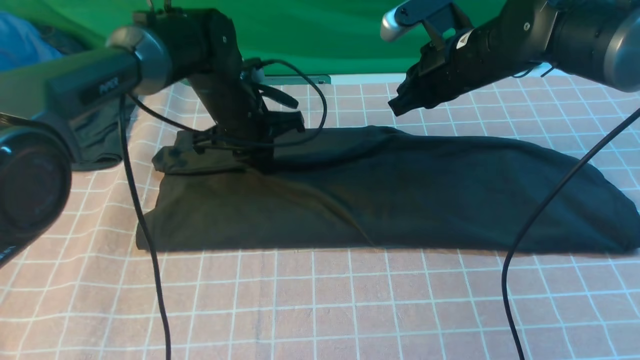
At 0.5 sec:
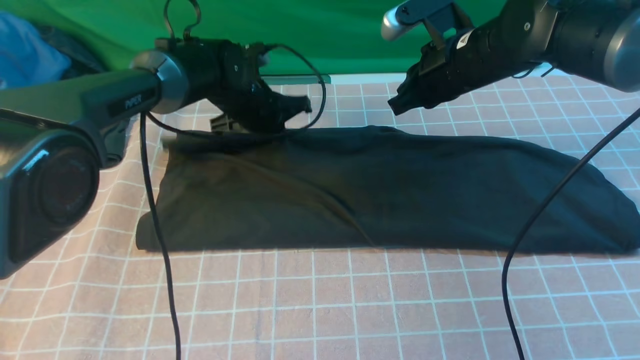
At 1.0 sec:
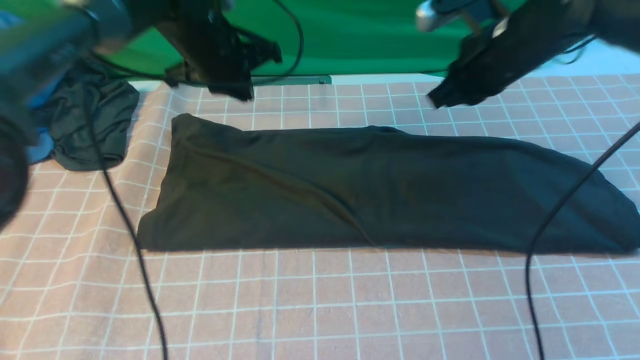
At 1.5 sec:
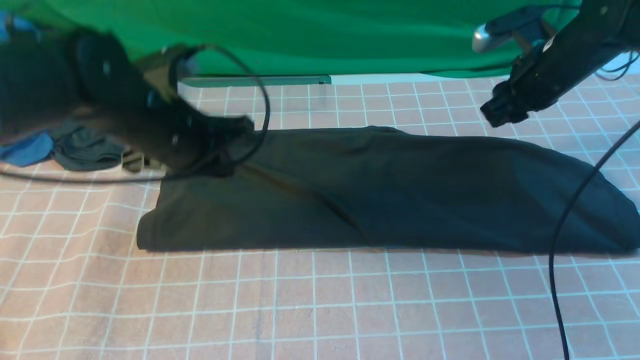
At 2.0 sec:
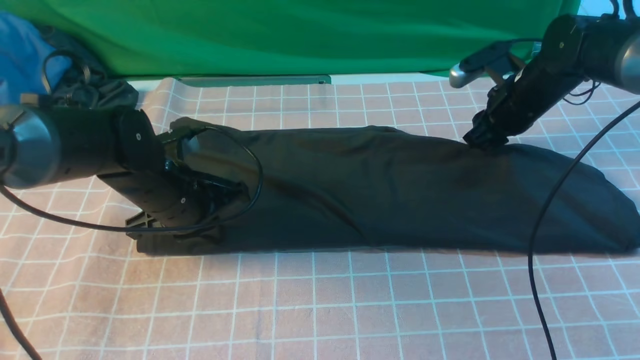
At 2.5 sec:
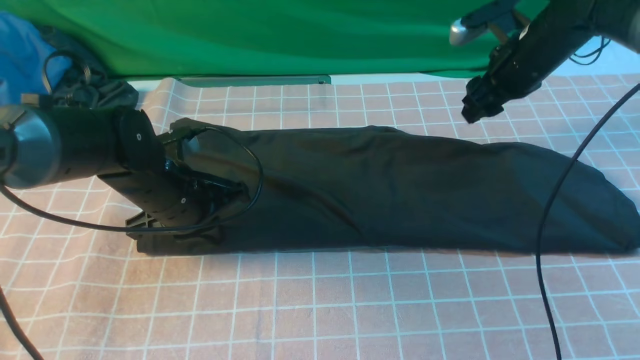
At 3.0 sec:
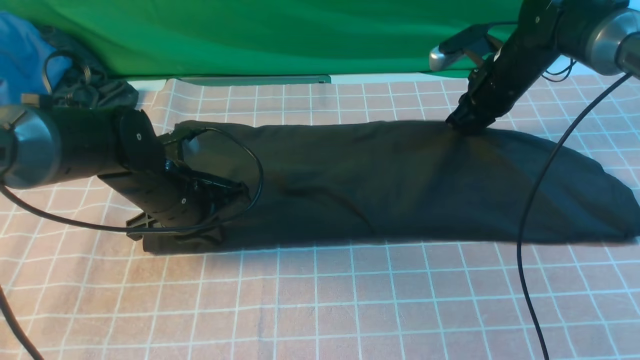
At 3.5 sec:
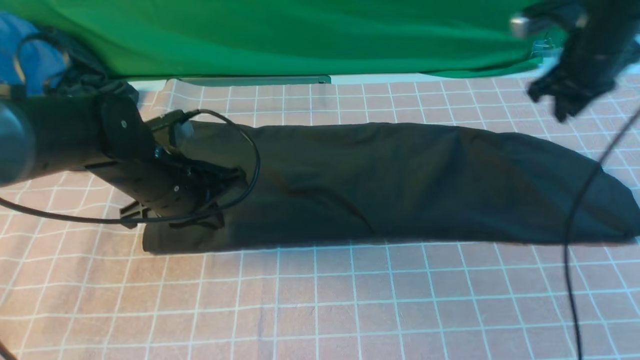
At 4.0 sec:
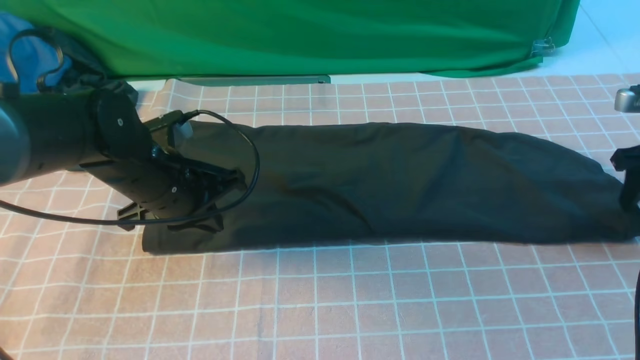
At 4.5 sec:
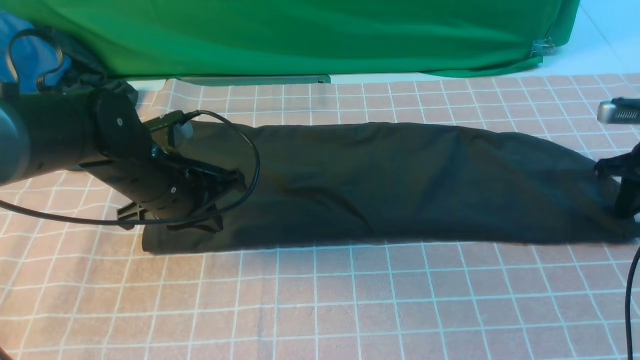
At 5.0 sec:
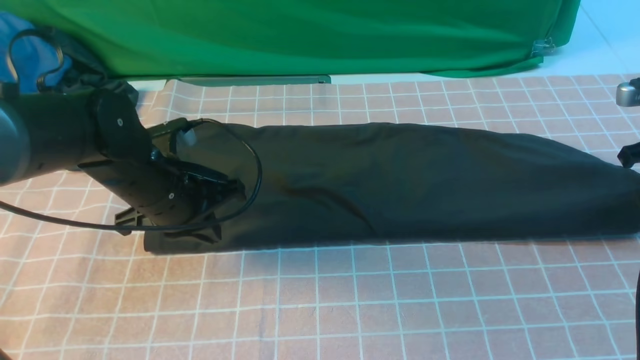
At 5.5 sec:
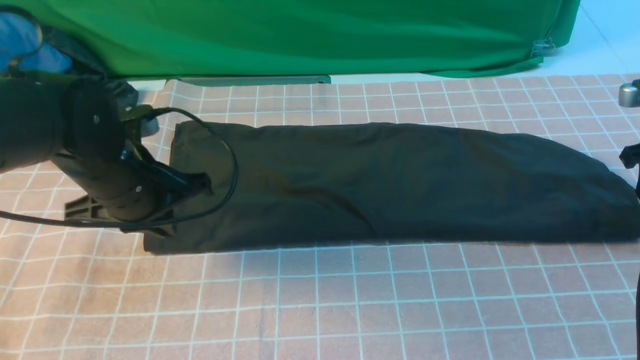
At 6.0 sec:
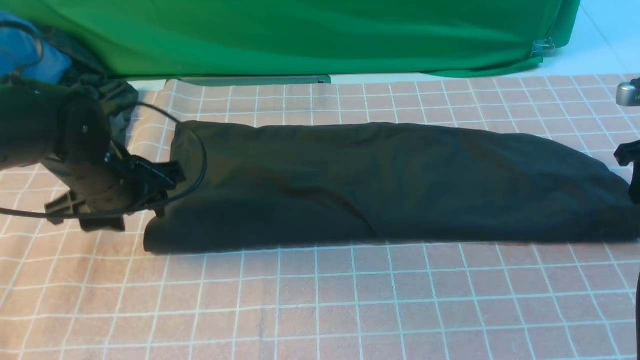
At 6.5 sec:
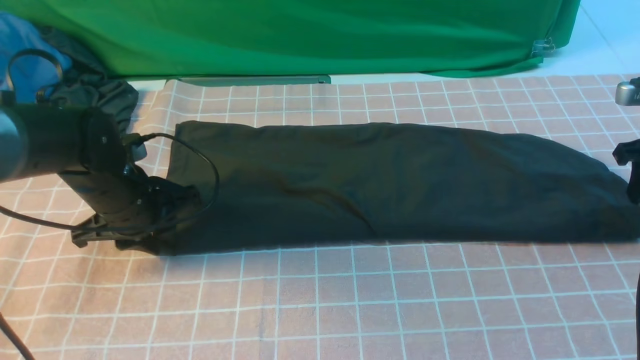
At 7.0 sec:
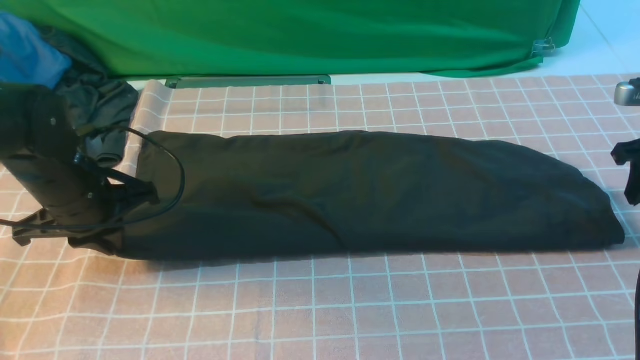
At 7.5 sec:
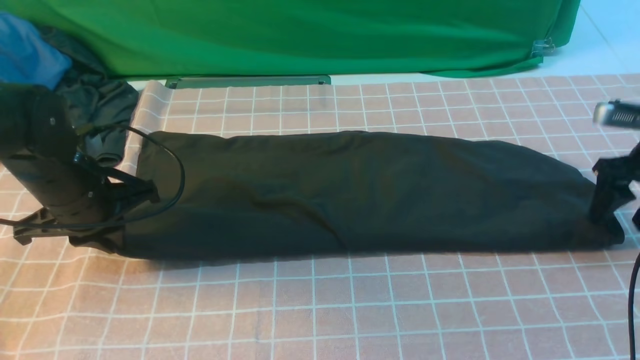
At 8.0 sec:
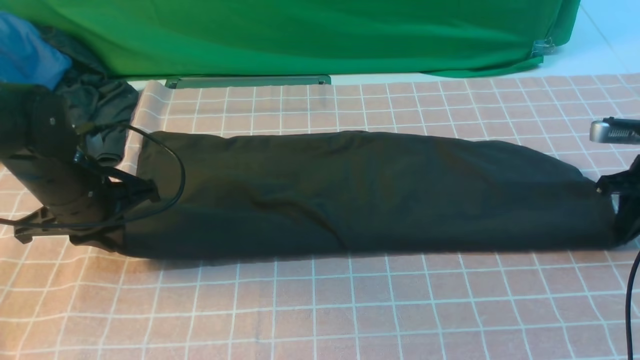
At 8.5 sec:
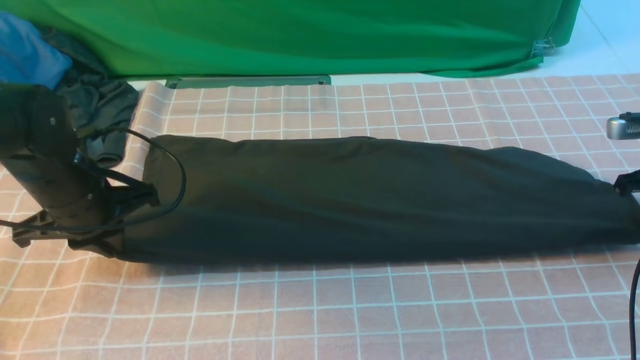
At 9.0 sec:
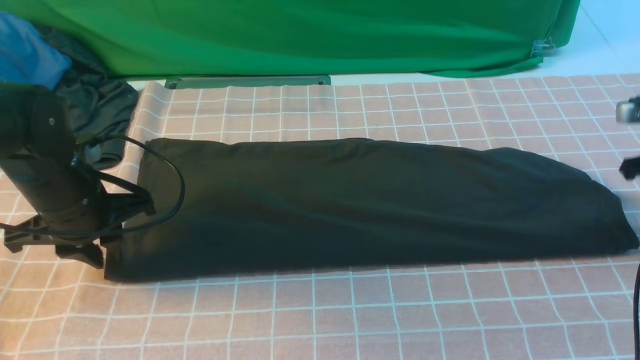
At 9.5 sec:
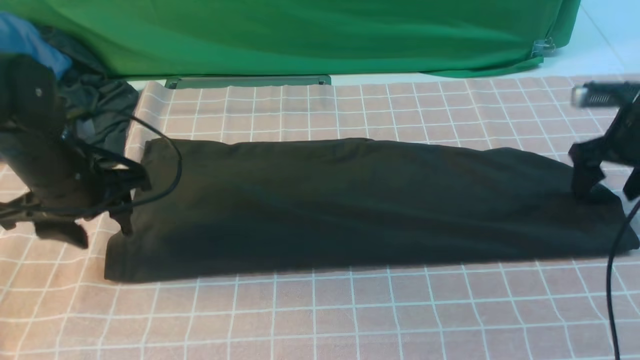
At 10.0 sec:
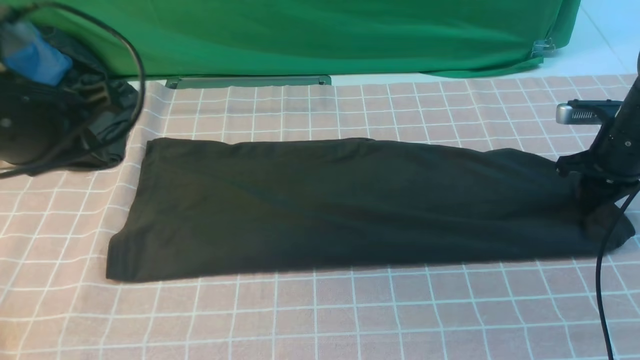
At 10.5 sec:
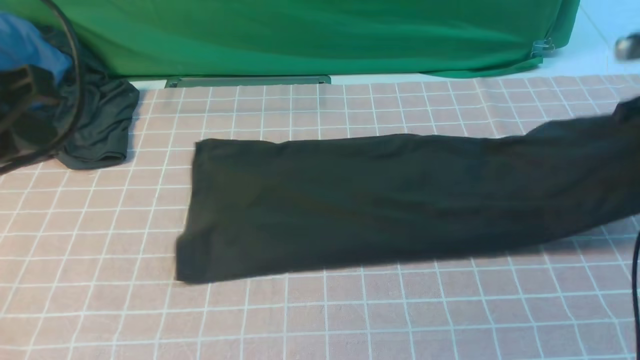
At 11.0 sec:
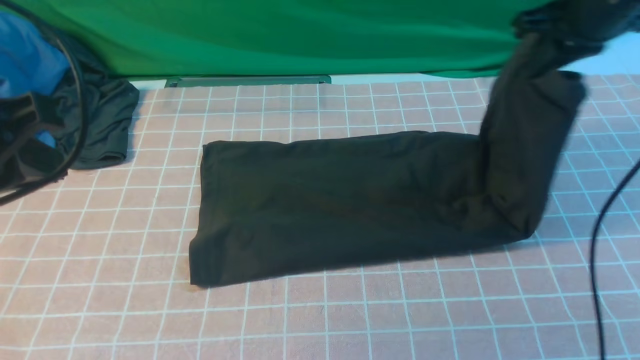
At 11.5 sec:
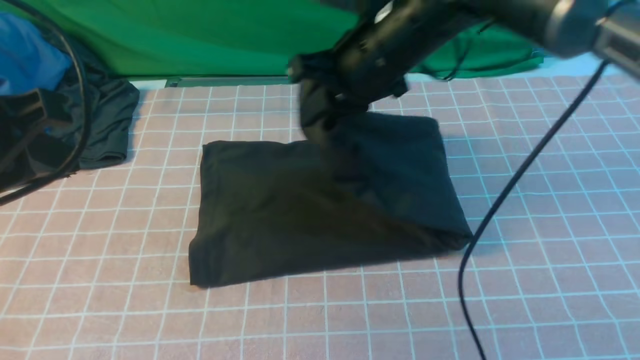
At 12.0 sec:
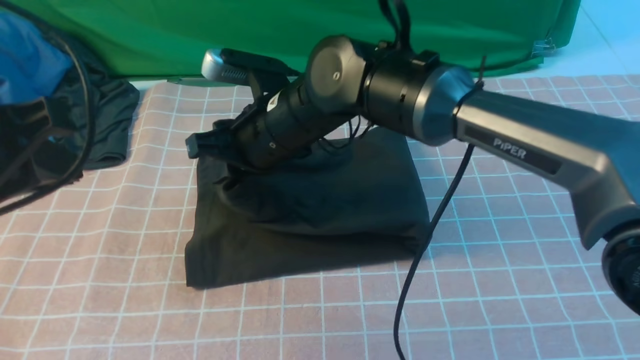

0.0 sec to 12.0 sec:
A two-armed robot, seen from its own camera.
Step, 0.0 sec to 9.5 sec: use the right arm to clamp the right edge of the fabric.
0.0 sec to 2.0 sec: The right gripper heads to the right and downward, covering roughly 10 cm, and opens its fingers. Meanwhile the left gripper travels backward and to the left by some 15 cm.
2.0 sec to 4.0 sec: The right gripper shifts about 15 cm to the right and backward.
4.0 sec to 6.0 sec: The right gripper closes, then opens again, while the left gripper heads to the left, covering roughly 5 cm, and opens up.
6.0 sec to 8.0 sec: The right gripper closes up; the left gripper closes.
8.0 sec to 10.0 sec: The right gripper shifts by about 5 cm, and opens, while the left gripper heads upward and backward, covering some 15 cm, and opens, then closes once more.
10.0 sec to 12.0 sec: The left gripper travels backward by roughly 5 cm. Meanwhile the right gripper travels to the left by roughly 40 cm.

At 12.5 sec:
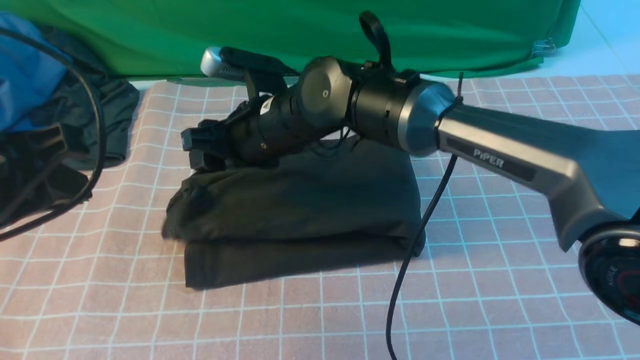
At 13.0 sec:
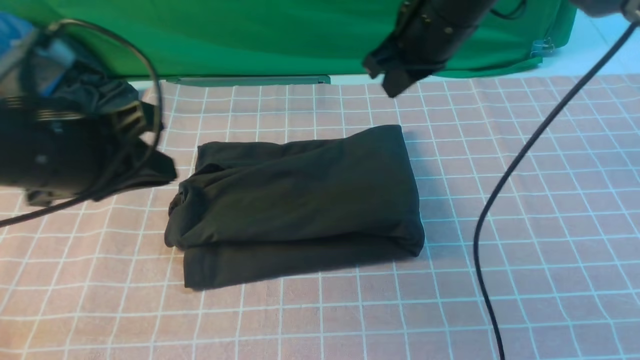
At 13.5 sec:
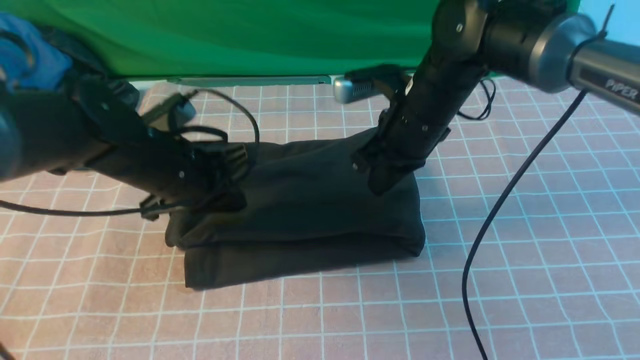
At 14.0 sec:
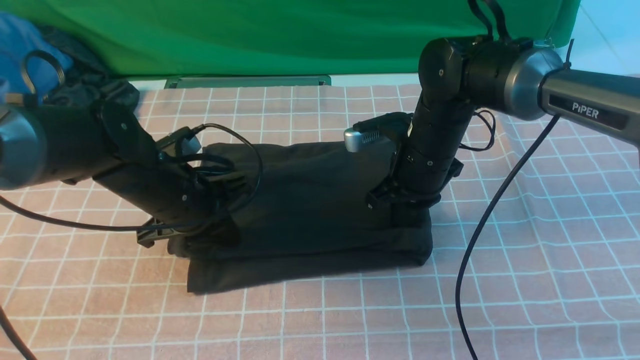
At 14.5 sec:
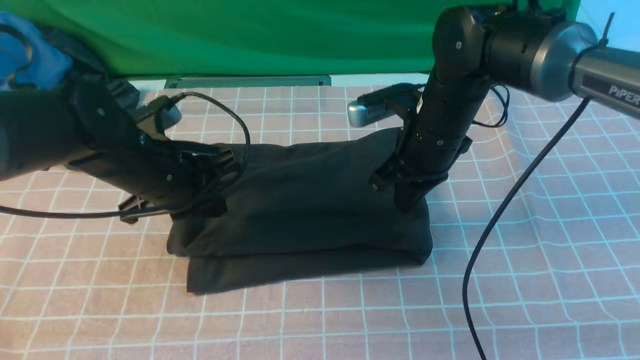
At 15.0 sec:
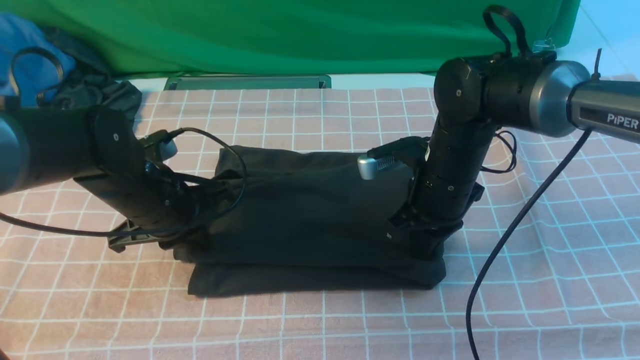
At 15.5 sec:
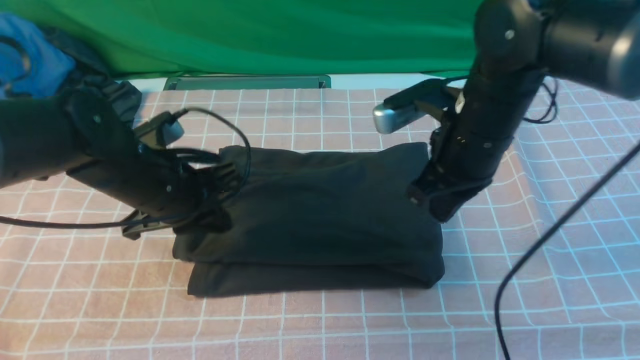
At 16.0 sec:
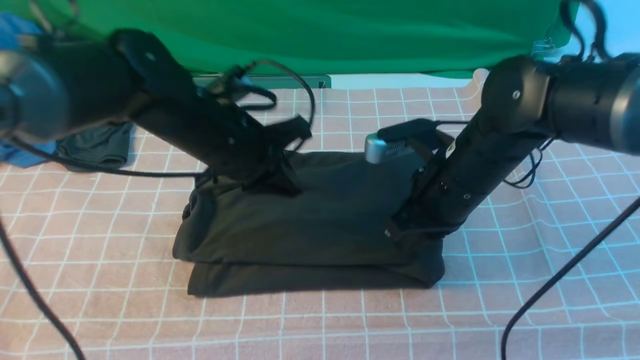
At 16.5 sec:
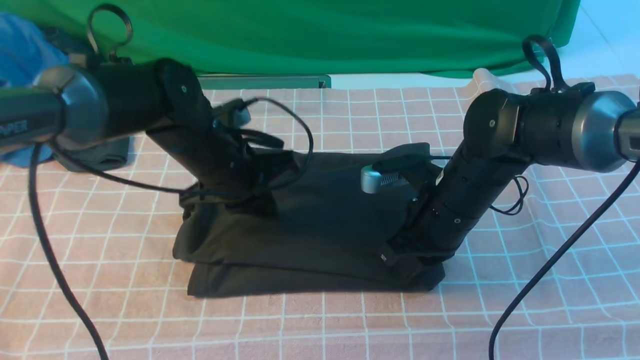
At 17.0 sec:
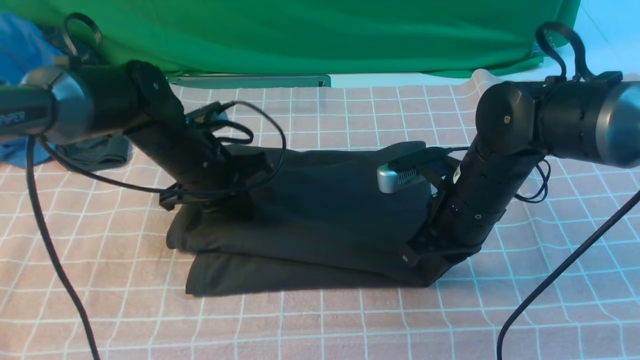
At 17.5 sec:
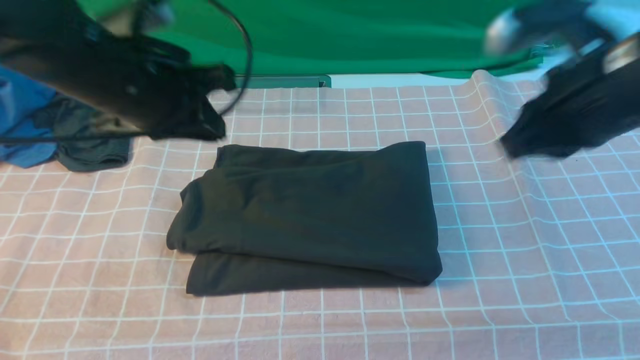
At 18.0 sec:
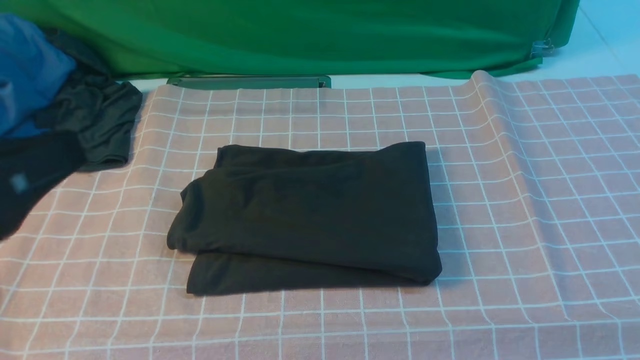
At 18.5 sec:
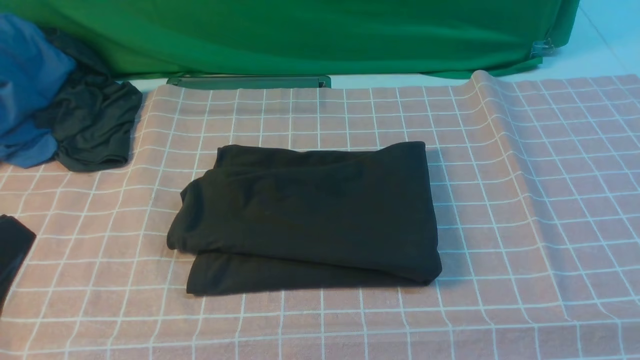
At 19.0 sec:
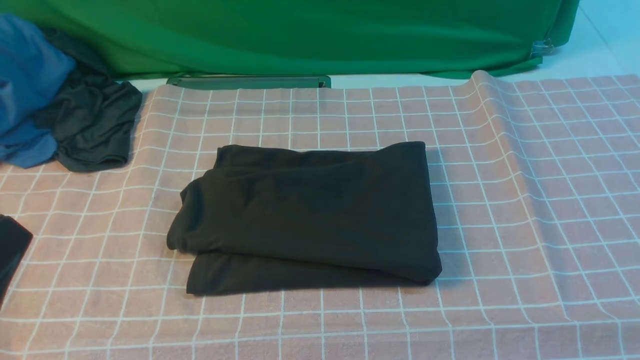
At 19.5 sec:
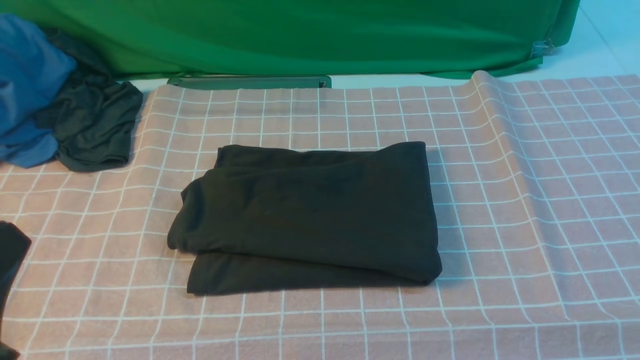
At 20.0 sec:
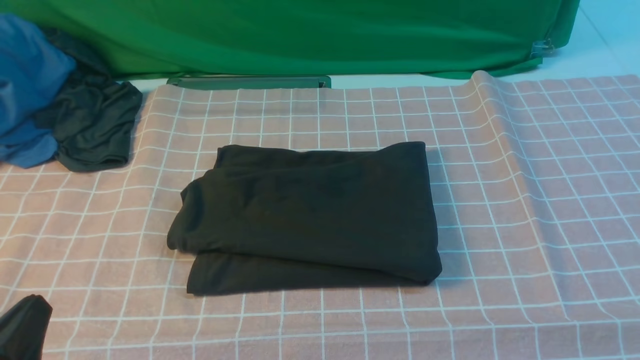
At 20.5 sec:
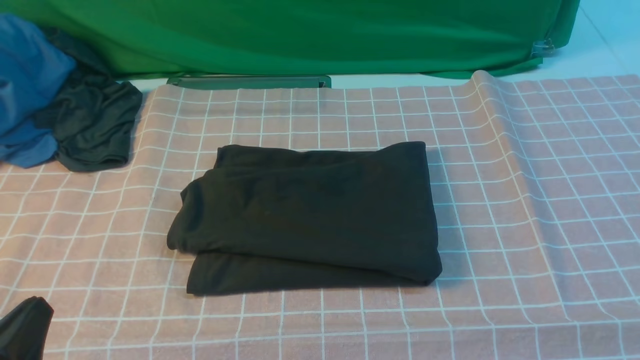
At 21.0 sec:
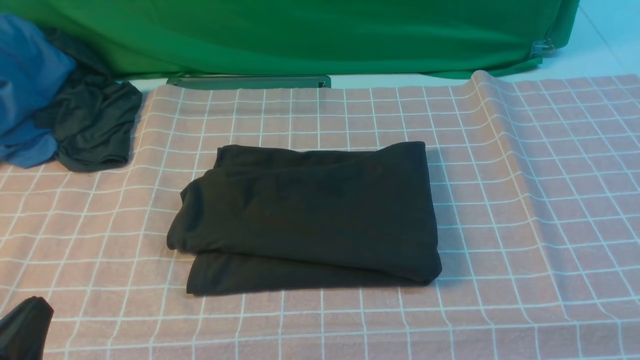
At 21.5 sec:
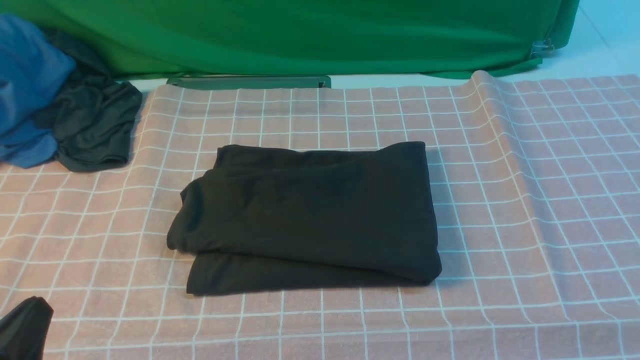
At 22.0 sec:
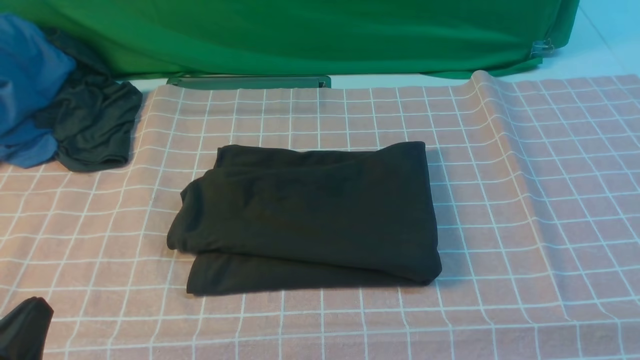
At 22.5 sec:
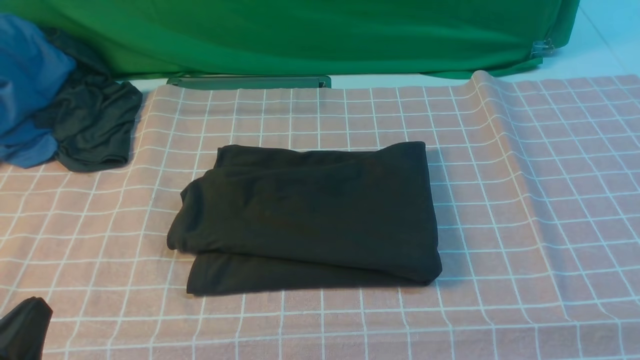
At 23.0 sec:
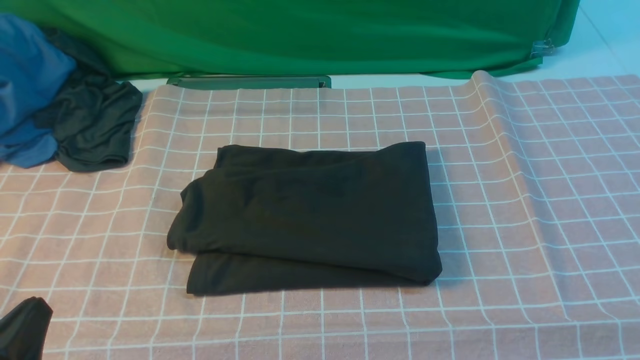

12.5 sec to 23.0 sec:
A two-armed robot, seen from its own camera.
12.5 sec to 14.5 sec: The left gripper moves downward and forward, roughly 20 cm; the right gripper moves to the right, some 15 cm, and closes.
14.5 sec to 16.5 sec: The right gripper moves backward, some 5 cm. The left gripper ends up approximately 5 cm from where it was.
16.5 sec to 19.0 sec: The right gripper moves backward, to the right and upward, some 35 cm, and opens up, while the left gripper moves backward, some 30 cm.
19.0 sec to 21.0 sec: The left gripper is displaced downward by about 10 cm.
